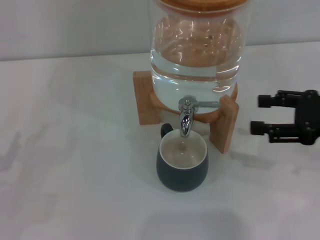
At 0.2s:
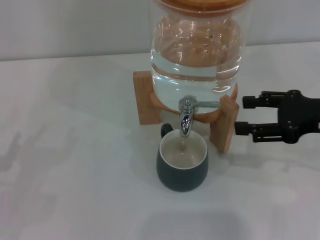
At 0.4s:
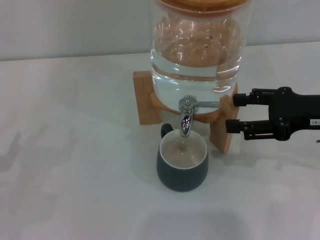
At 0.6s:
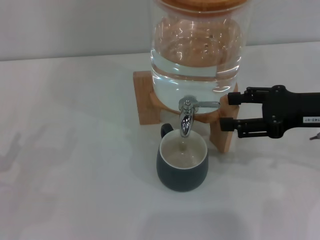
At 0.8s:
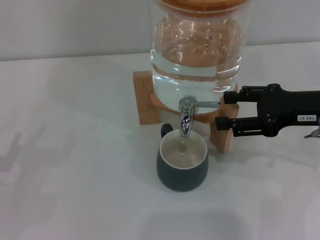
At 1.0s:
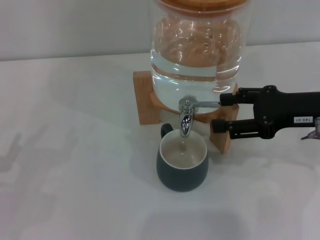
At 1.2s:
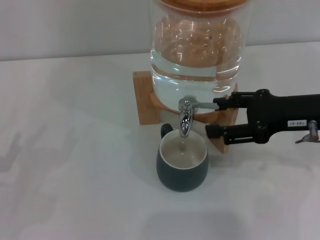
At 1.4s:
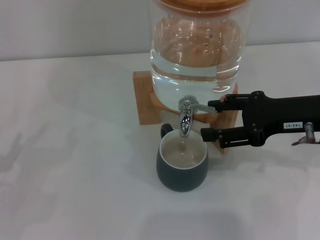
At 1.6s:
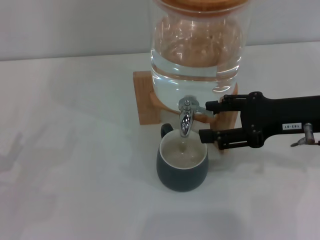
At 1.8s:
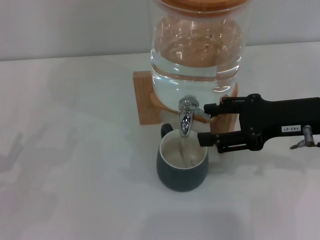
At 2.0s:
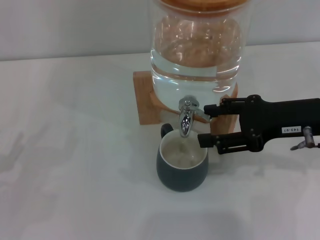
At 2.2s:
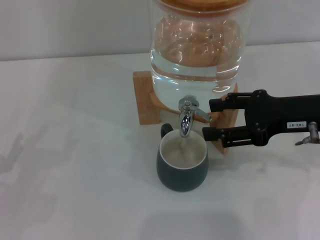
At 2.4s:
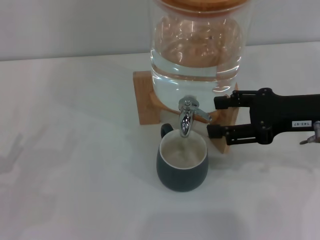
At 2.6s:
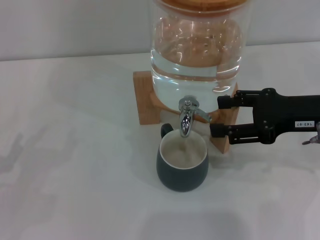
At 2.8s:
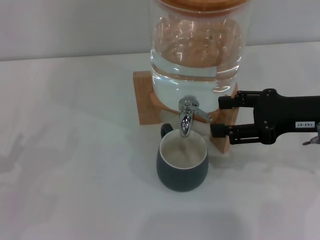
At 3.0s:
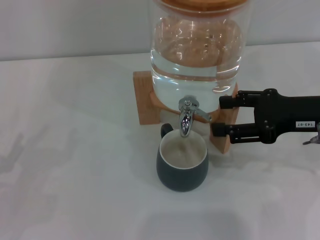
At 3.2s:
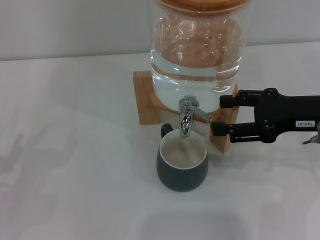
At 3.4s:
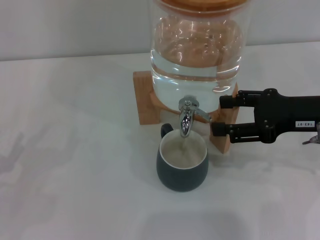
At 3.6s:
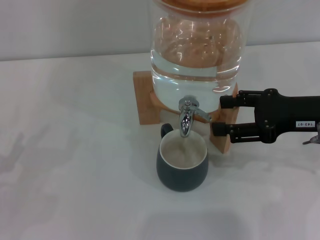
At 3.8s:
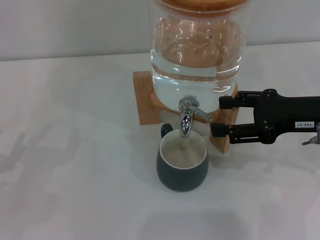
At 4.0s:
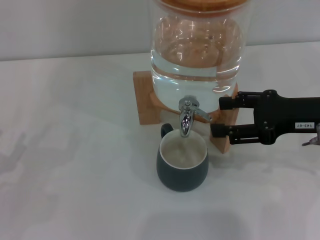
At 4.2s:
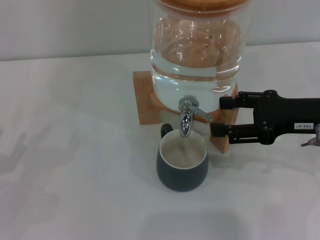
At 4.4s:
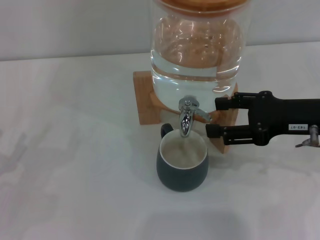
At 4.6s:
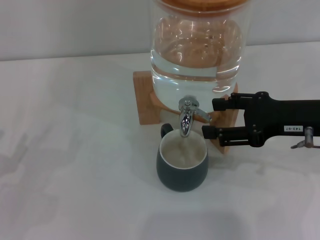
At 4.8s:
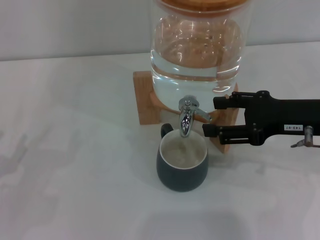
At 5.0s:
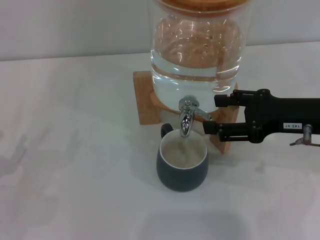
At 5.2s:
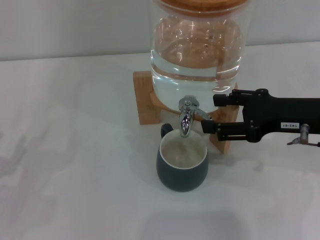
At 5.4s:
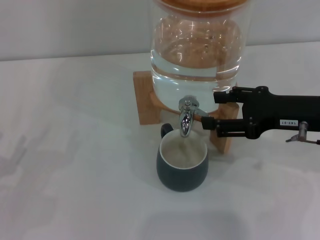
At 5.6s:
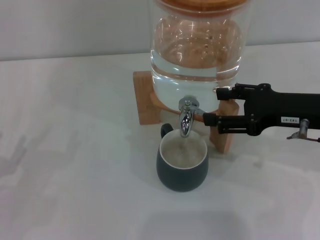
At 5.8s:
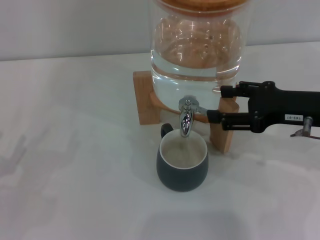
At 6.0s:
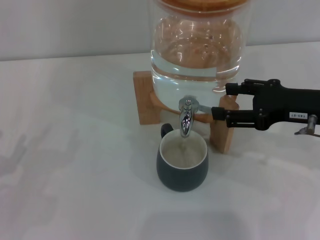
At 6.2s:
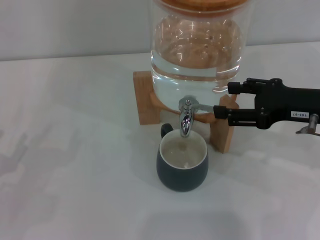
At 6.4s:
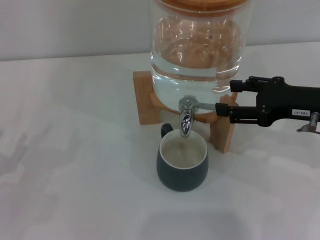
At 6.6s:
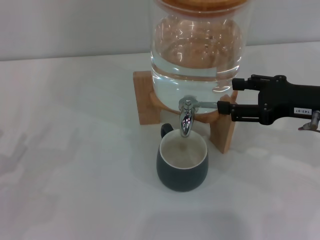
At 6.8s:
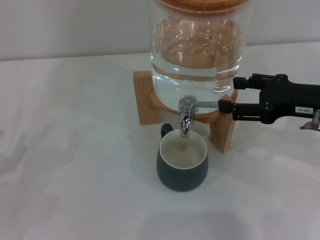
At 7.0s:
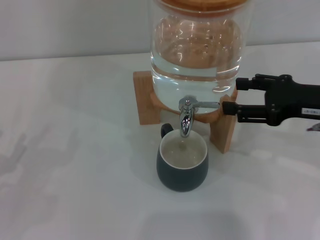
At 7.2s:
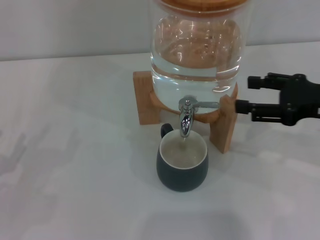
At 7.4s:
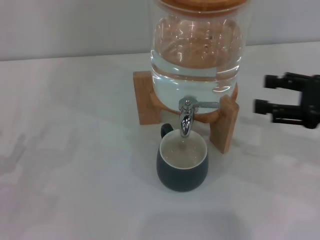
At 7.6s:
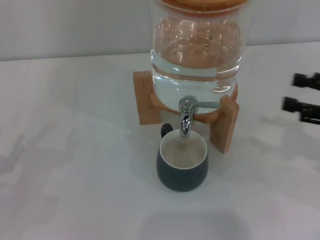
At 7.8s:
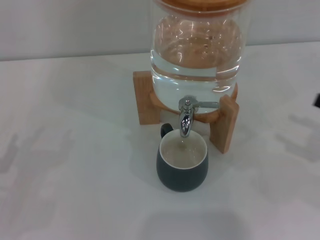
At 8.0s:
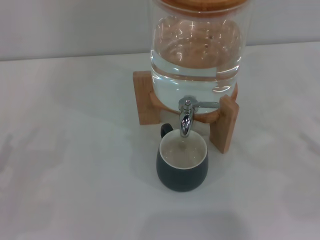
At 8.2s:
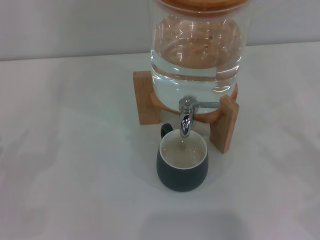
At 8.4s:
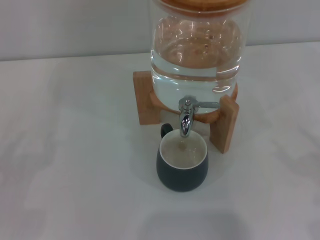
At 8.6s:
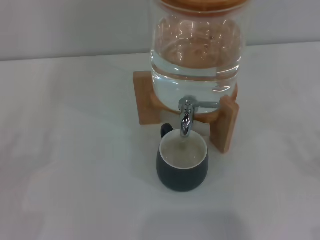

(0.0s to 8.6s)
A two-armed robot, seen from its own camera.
Task of the whole recording: the left gripper pick up the black cup and place it horizontally under the faucet, the right gripper turn on the faucet to fill the cup, and then turn off the faucet.
Step, 0.0s - 2.4s: Open the dispenser valve and fill the cup with water with the right gripper.
Step, 2.6s - 6.8s: Close the dispenser valve with the right gripper.
Step, 7.2s - 8.4s: Move the cup beneath the water dispenser nozzle with the right gripper.
0.0s - 1.4s: The right gripper heads to the left, covering roughly 5 cm.
1.4s - 2.8s: The grippers stay close to where they were, moving slightly.
2.8s - 4.4s: Both grippers stay about where they are.
4.4s - 7.2s: The grippers move only a little.
7.2s - 8.6s: The right gripper moves backward, downward and to the right, about 20 cm.
